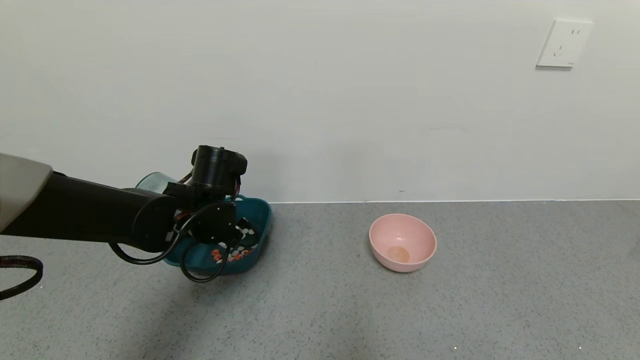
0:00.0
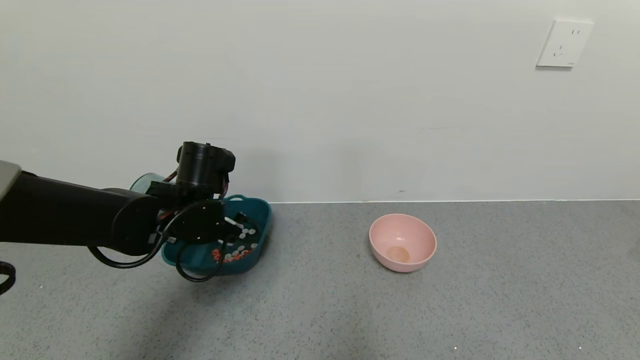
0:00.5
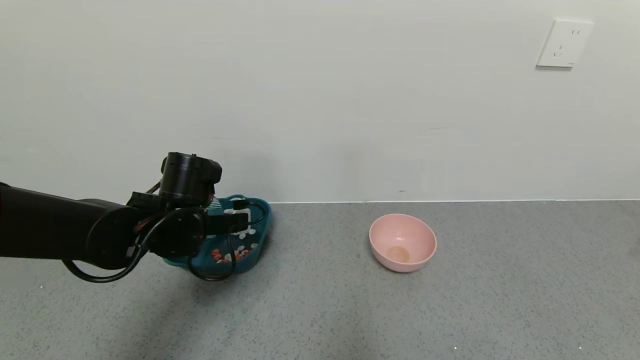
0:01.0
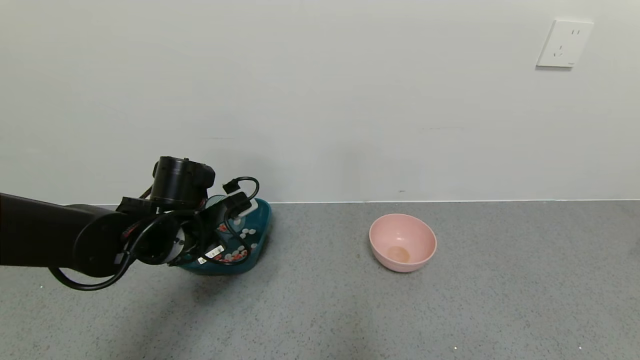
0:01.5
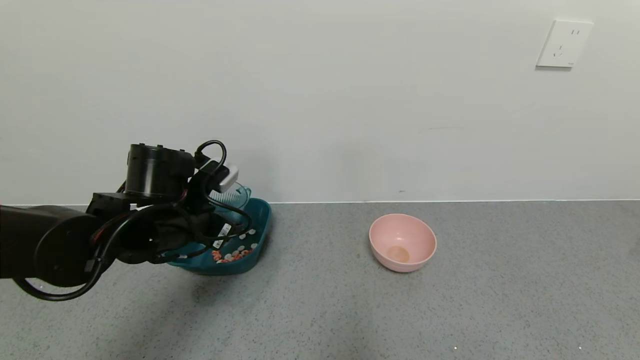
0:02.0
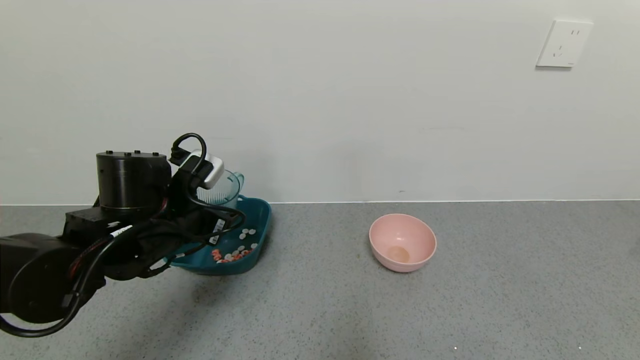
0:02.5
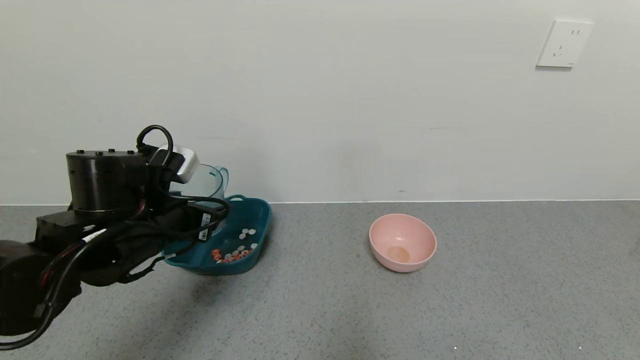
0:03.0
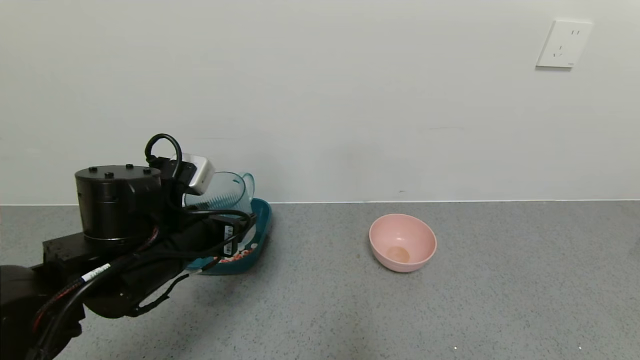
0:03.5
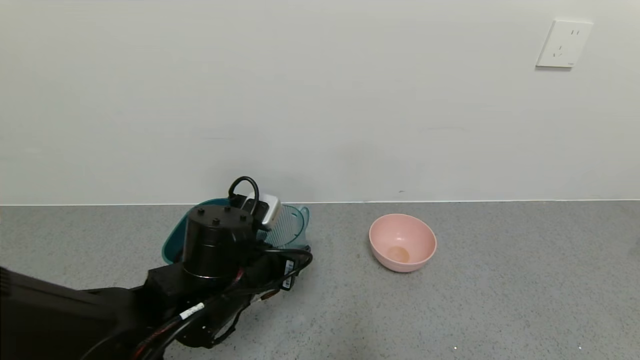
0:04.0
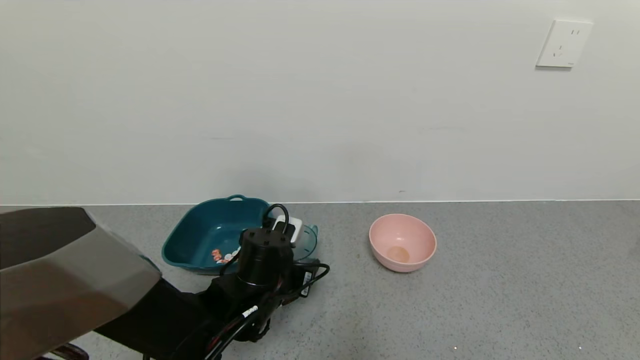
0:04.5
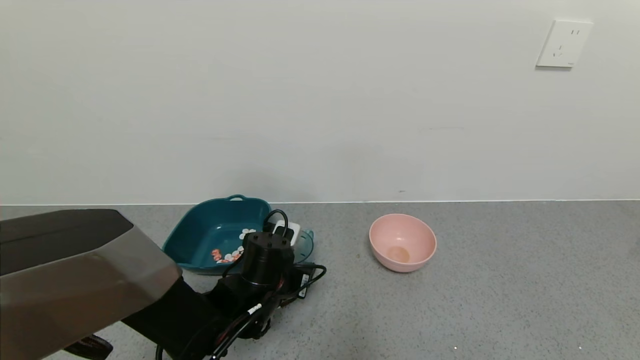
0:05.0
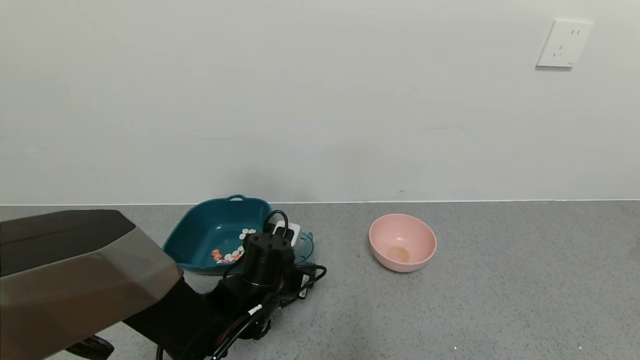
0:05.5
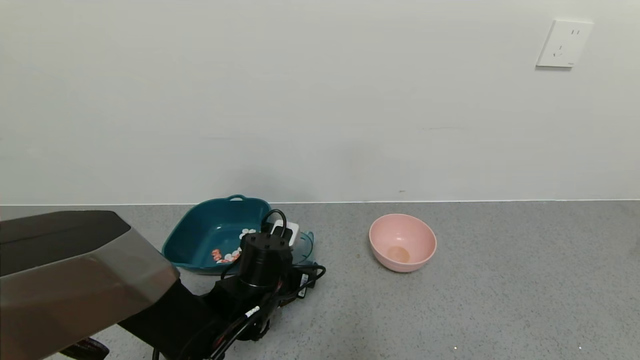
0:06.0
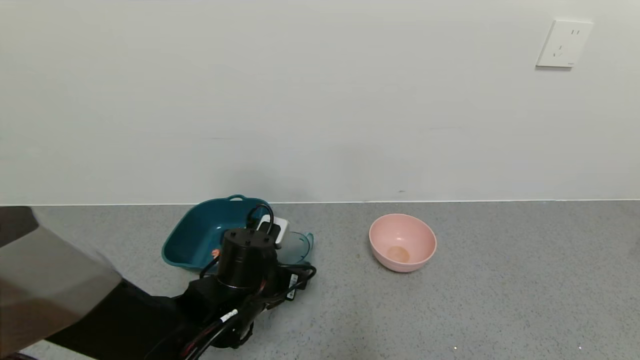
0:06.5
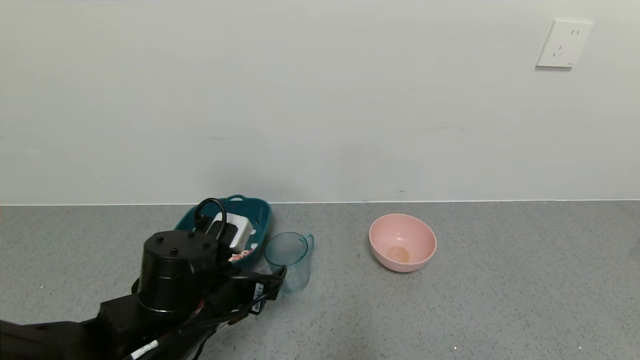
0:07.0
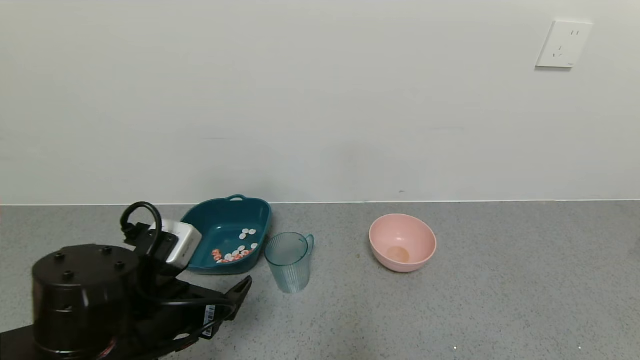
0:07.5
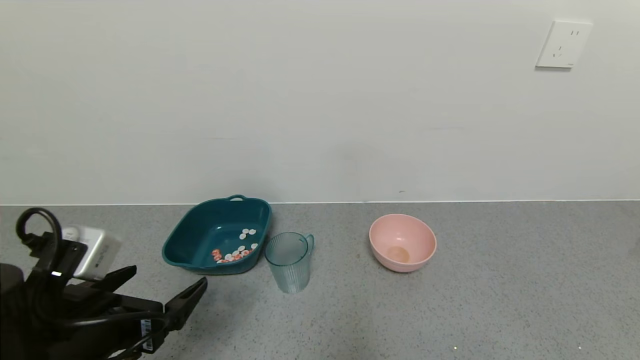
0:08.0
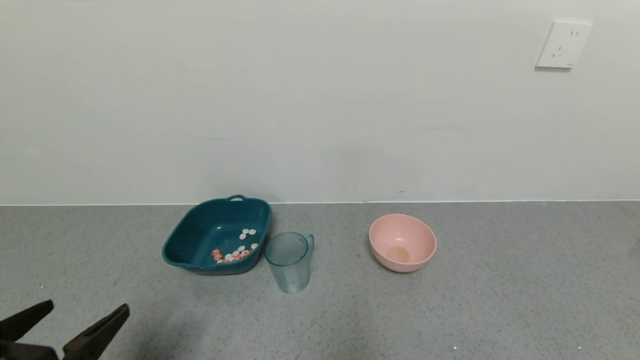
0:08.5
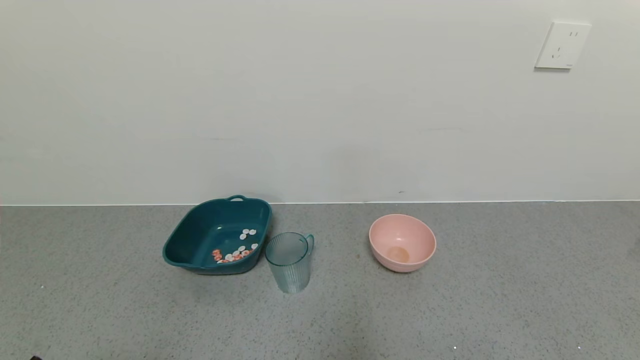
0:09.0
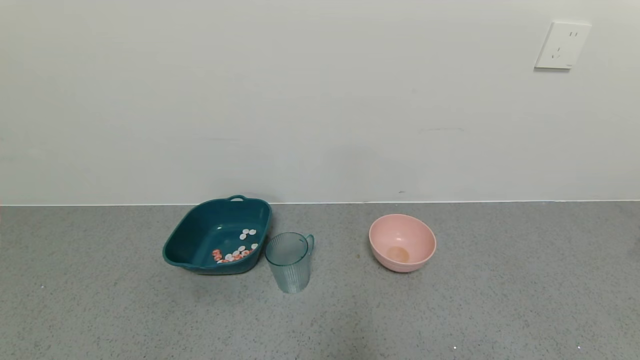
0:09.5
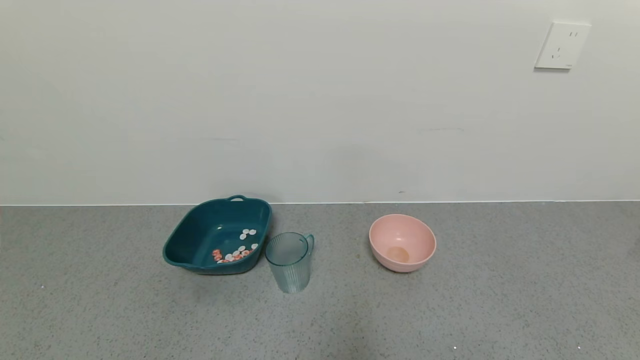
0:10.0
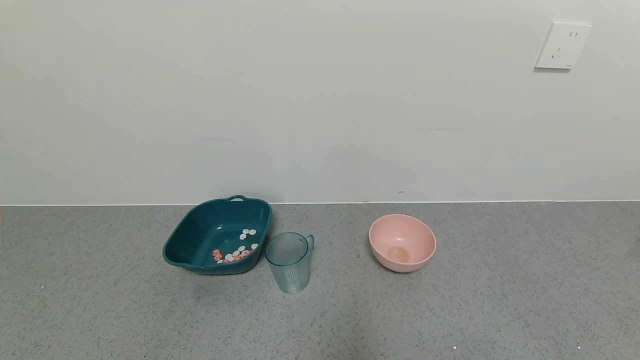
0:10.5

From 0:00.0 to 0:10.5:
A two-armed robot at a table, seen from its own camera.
Task of the whole recording: use a gripper to pick up the cup and pour the solid into a bowl or tray.
Step, from 0:01.5 to 0:06.5: Place the glass cup with the left gripper.
From 0:00.0 to 0:02.0: The left gripper ends up approximately 5 cm from where it was.
From 0:02.0 to 0:04.0: The left gripper moves to the right and backward, about 10 cm.
From 0:04.0 to 0:06.5: The left gripper opens up.
From 0:06.5 to 0:08.5: The left gripper moves backward and to the left, some 25 cm.
From 0:08.5 to 0:10.5: The left gripper shifts about 15 cm backward and downward.

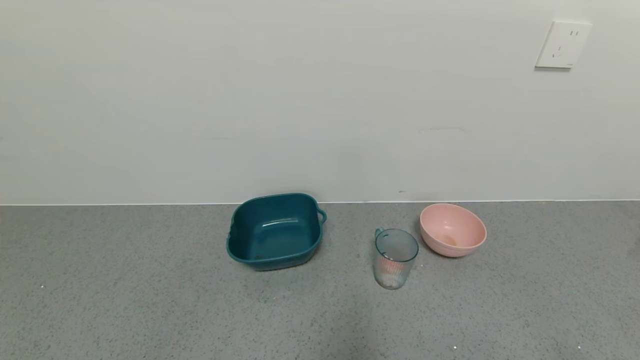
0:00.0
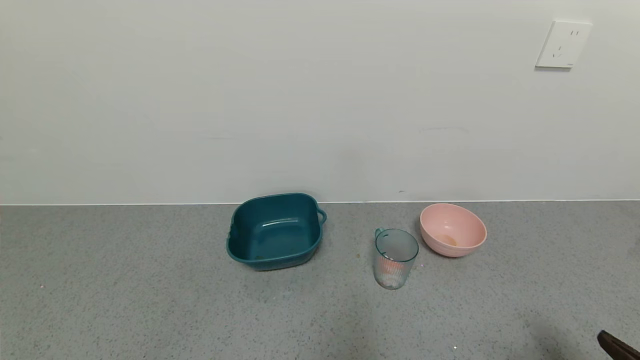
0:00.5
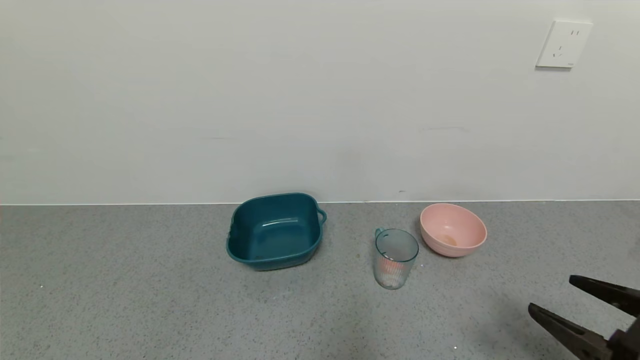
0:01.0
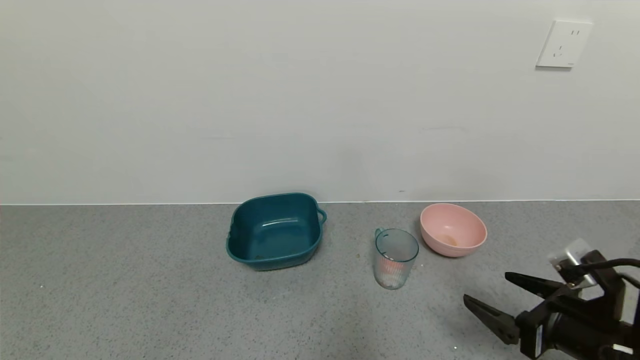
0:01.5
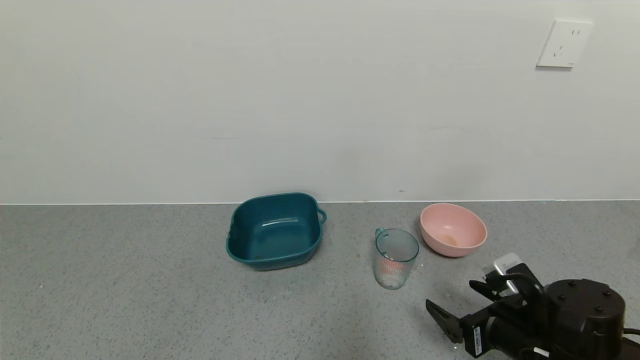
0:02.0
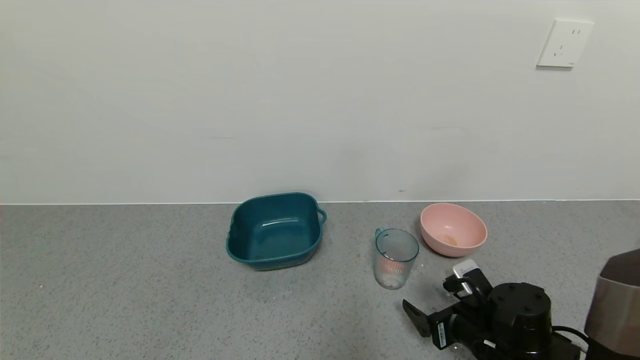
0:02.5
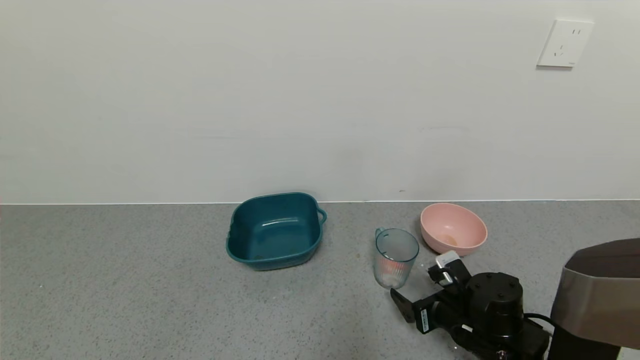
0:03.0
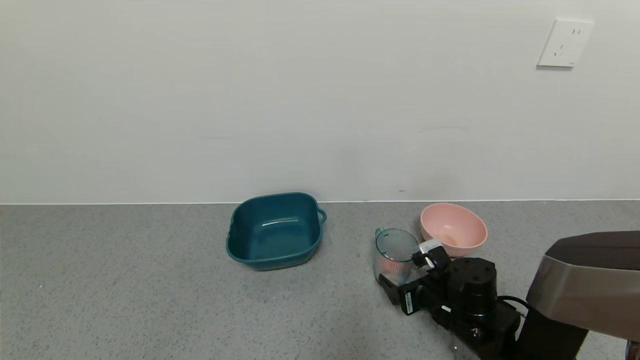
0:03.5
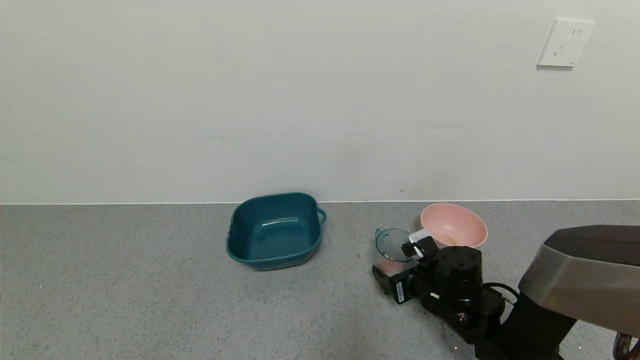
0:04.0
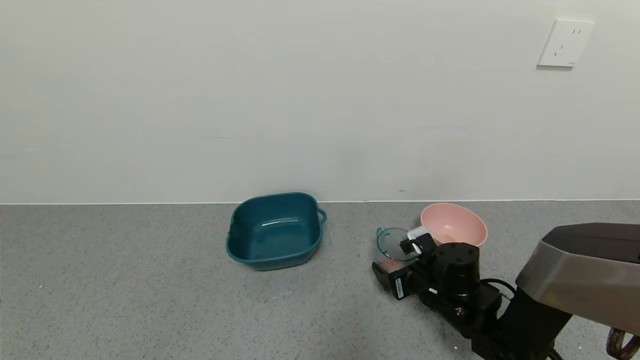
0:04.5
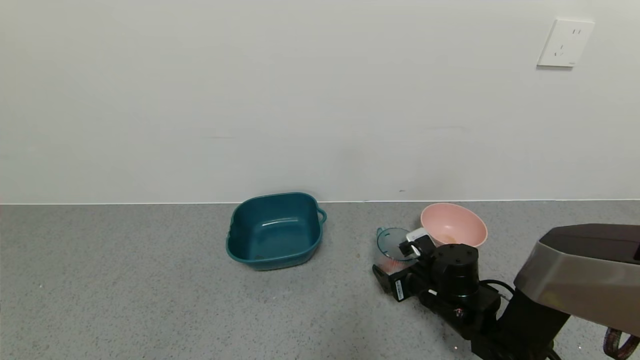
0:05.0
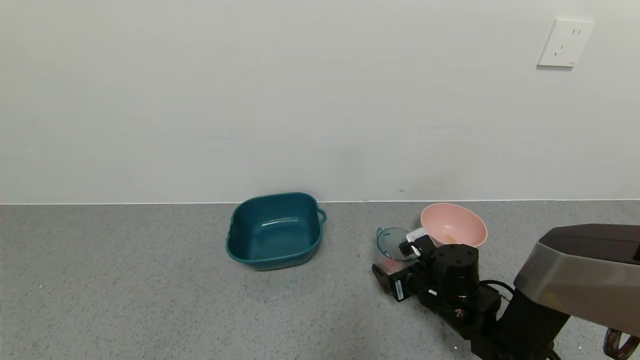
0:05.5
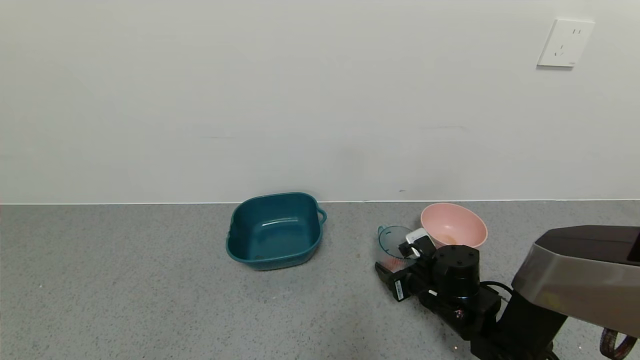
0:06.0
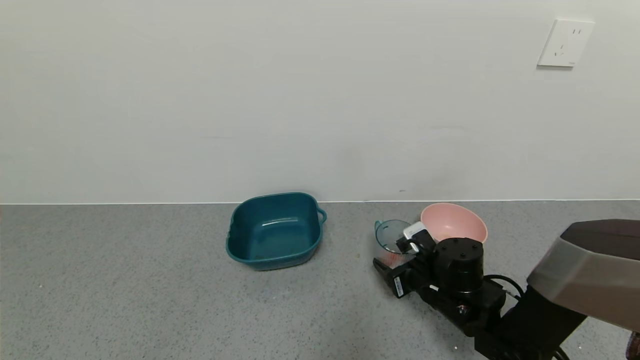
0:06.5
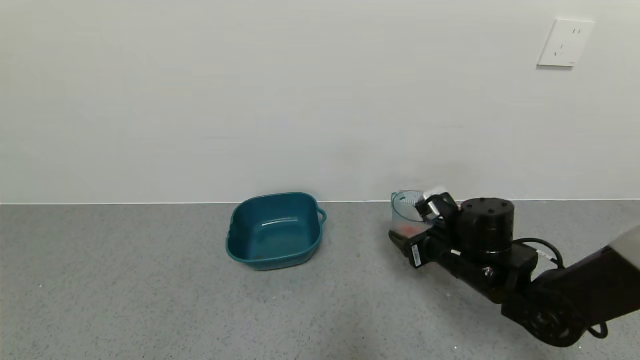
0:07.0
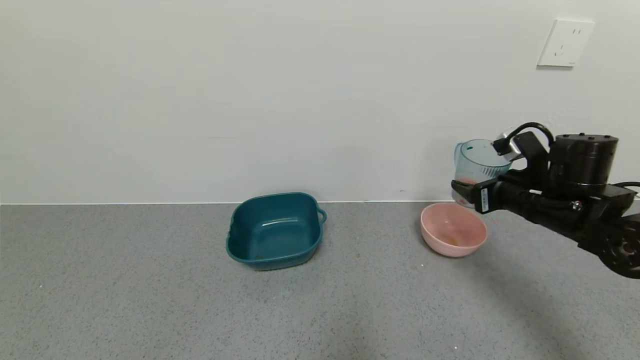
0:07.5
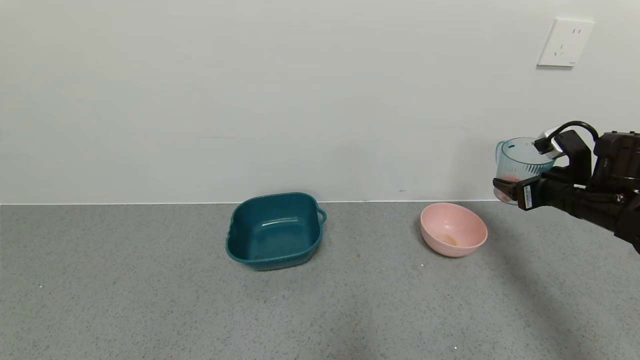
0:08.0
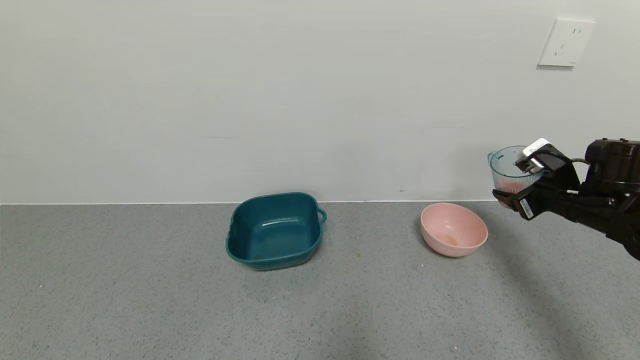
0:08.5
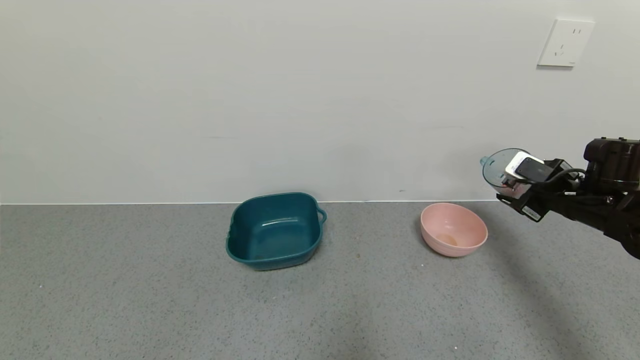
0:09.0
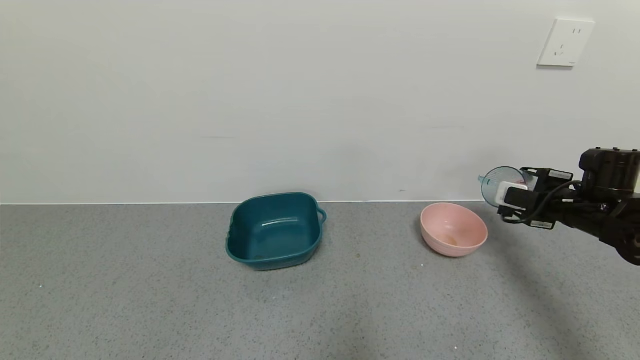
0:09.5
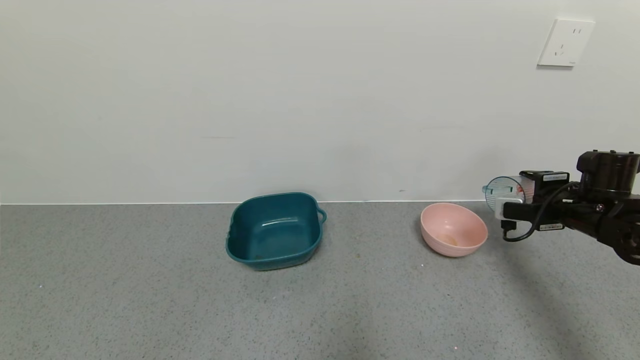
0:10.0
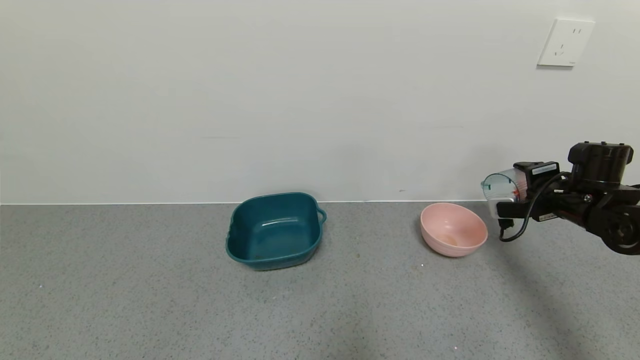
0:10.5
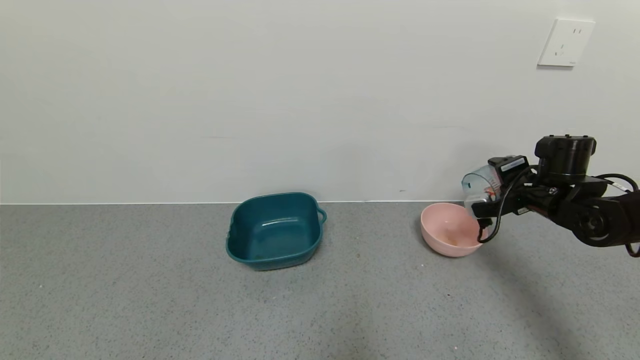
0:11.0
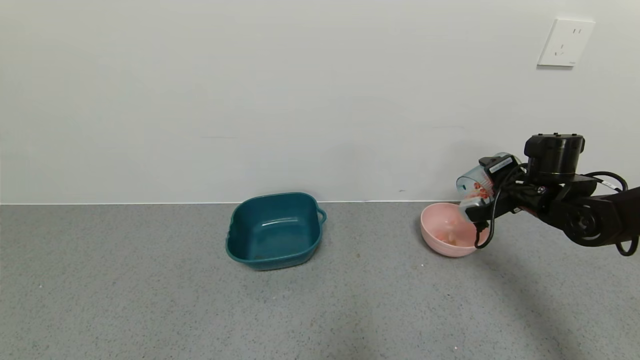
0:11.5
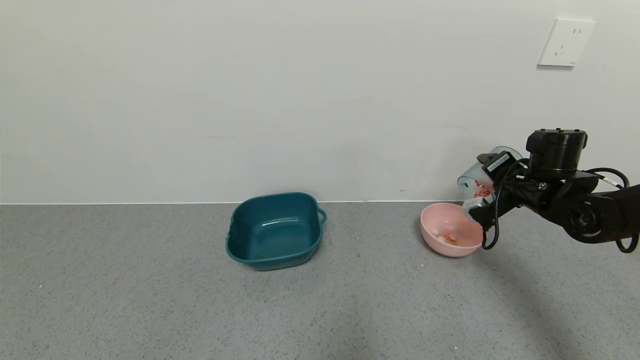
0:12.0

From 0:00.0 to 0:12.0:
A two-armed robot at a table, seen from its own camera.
Task of the whole recording: use a gripper to pick up the cup and pour the solid into a bowl or tray.
Step, from 0:00.0 to 0:06.0: Grasp the glass of shrimp with the right gripper.
From 0:00.0 to 0:02.0: The right gripper heads forward and to the left, covering about 25 cm.
From 0:02.0 to 0:04.0: The right gripper moves forward and to the left, roughly 10 cm.
From 0:04.0 to 0:06.0: The right gripper closes.
From 0:06.0 to 0:08.0: The right gripper goes roughly 25 cm to the right and upward.
From 0:10.0 to 0:12.0: The right gripper goes about 5 cm to the left.
